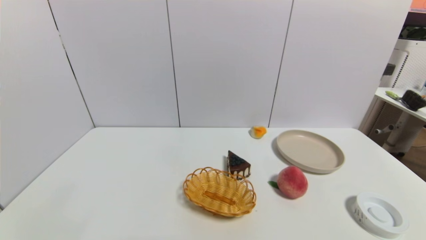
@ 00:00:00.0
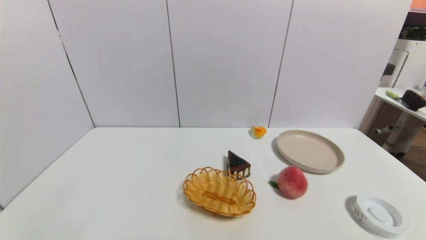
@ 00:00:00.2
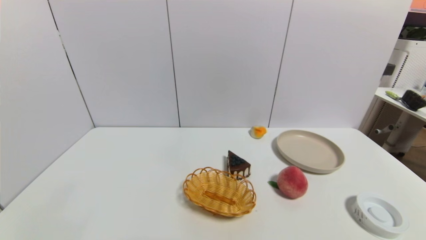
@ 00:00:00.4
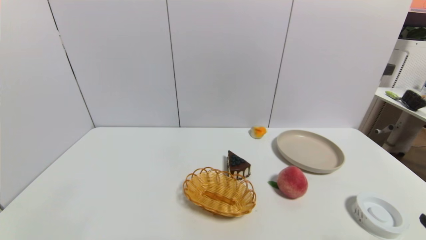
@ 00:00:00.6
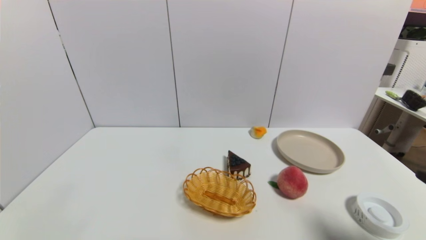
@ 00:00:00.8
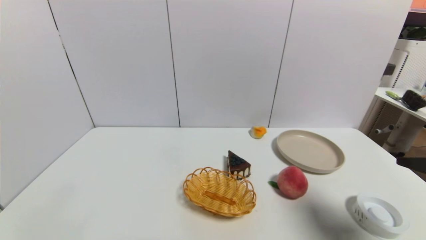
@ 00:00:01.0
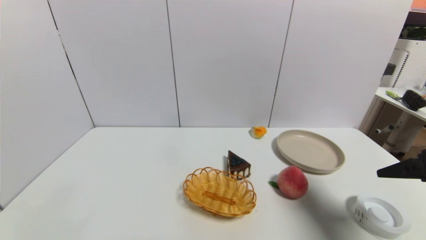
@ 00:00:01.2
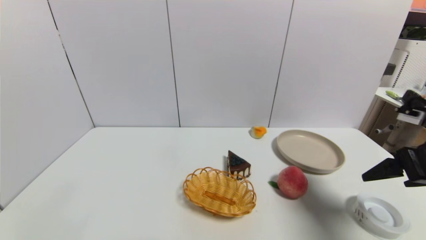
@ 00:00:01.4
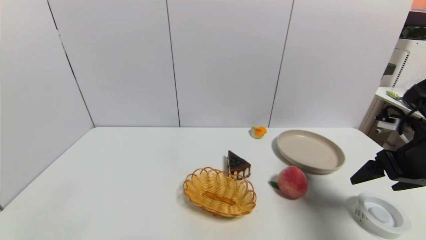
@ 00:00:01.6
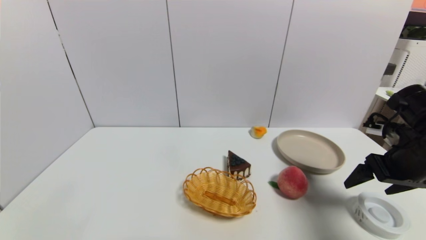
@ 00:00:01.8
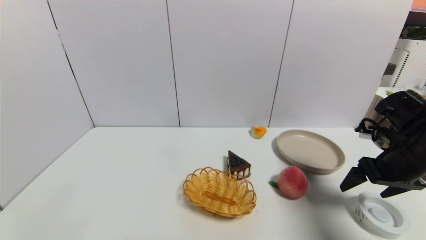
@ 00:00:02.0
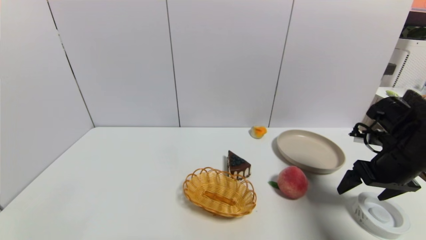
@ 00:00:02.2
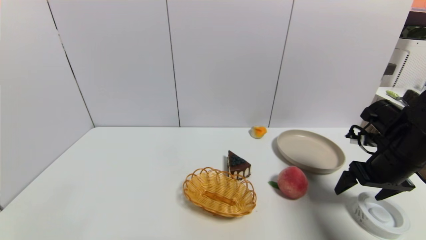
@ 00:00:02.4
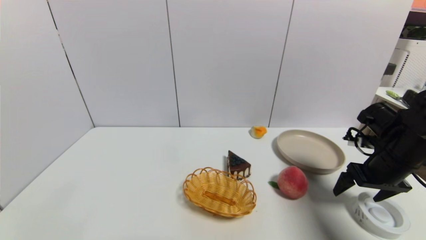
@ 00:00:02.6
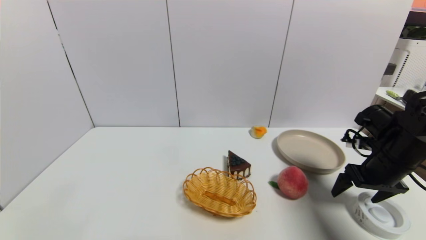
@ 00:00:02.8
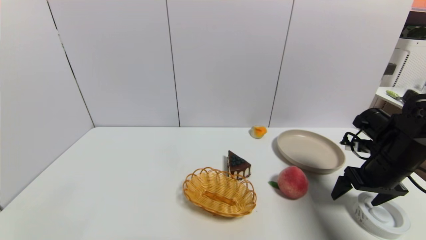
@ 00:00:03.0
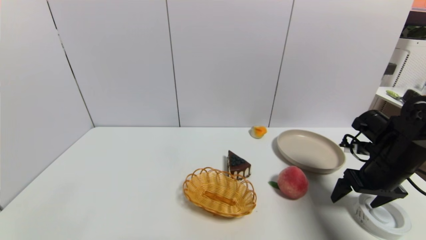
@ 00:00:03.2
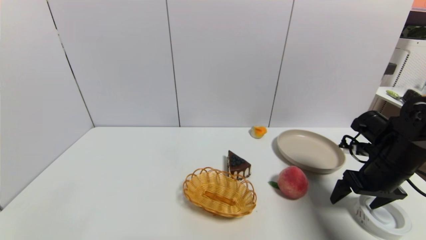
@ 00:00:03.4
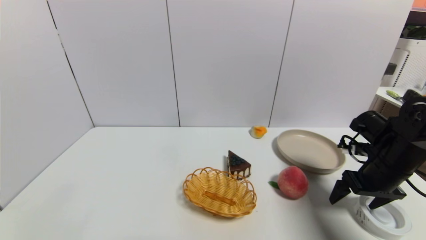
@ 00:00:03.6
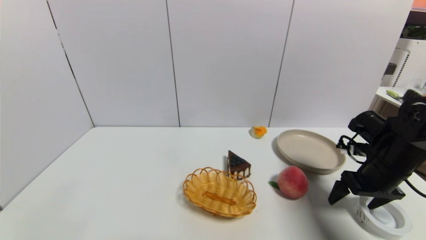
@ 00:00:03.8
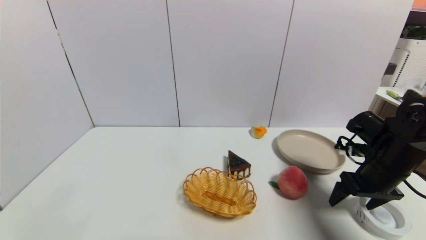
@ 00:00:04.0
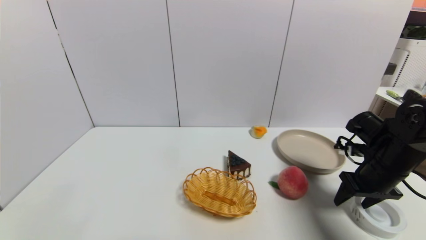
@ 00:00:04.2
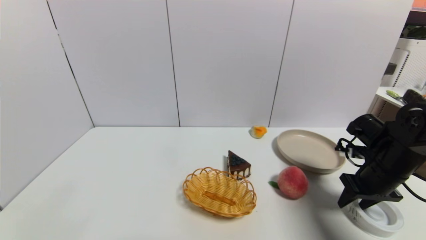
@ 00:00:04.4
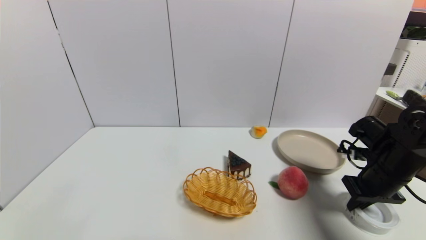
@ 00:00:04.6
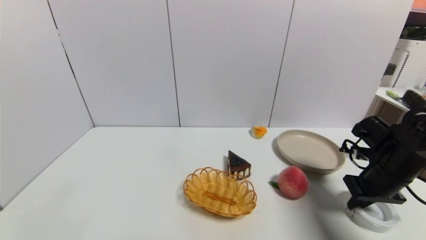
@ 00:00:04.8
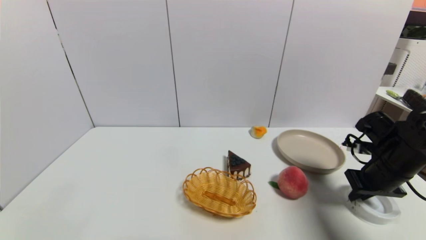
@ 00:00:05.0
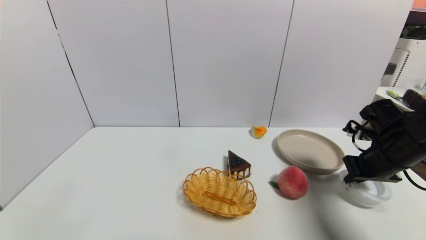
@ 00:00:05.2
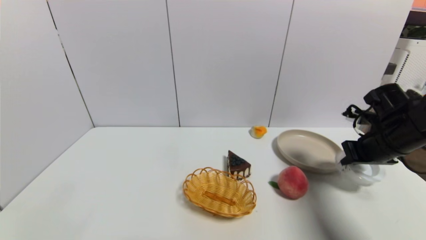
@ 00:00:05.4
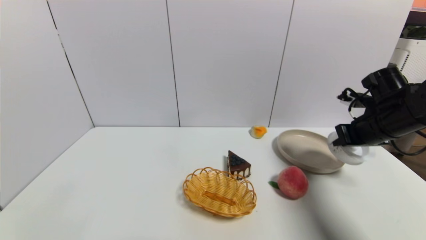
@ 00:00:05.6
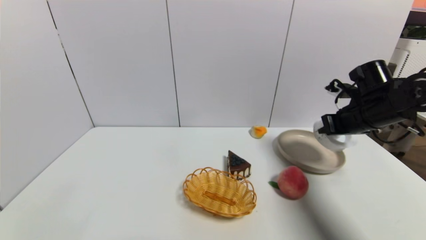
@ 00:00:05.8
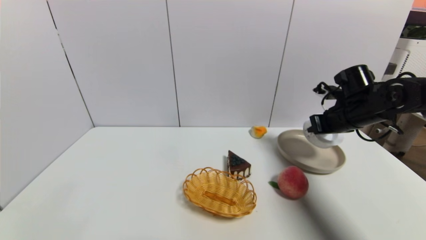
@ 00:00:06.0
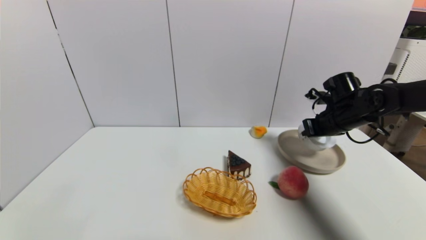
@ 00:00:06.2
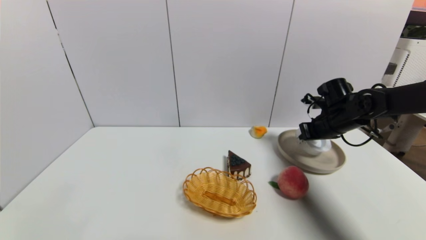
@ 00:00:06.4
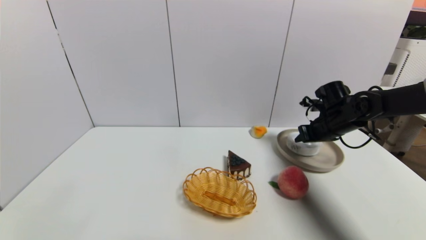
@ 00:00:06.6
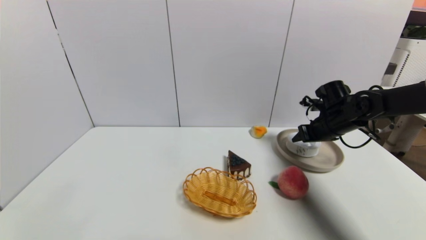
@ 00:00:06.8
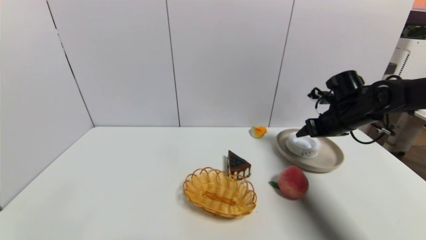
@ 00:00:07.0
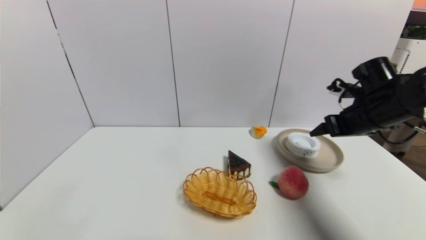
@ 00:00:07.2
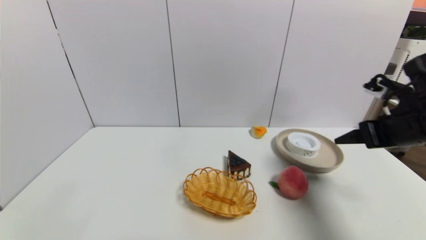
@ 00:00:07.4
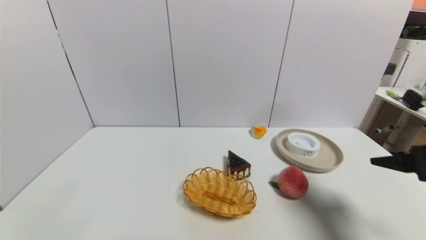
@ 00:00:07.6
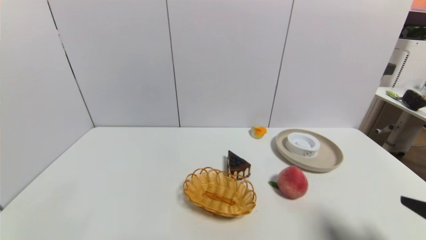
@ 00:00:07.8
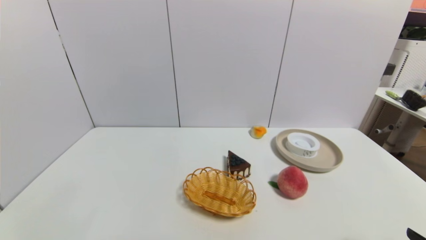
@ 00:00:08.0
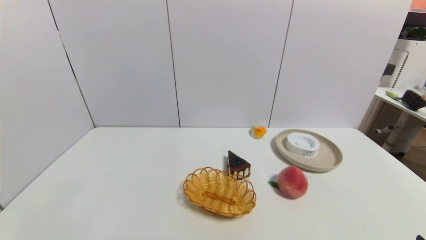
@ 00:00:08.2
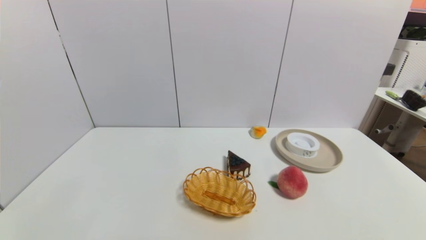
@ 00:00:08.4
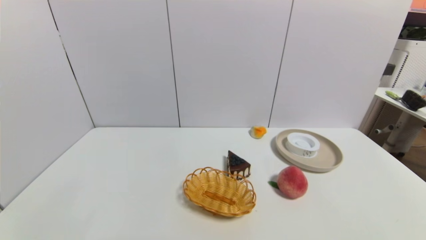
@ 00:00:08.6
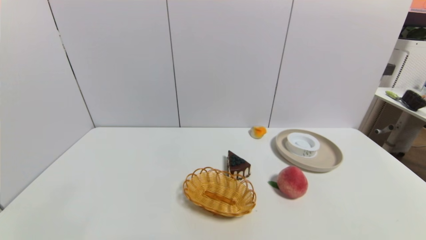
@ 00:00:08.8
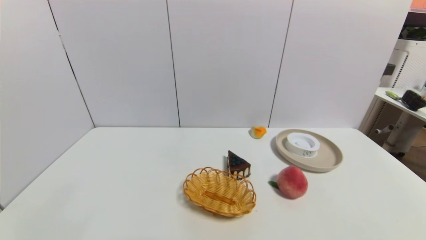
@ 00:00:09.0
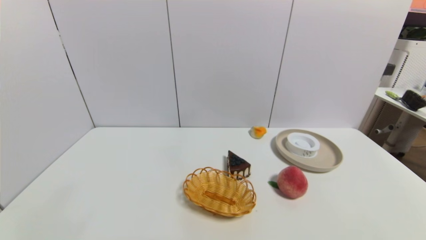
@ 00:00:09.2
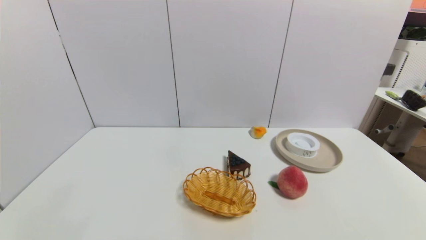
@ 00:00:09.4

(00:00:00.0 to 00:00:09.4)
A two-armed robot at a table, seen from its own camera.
Task of the whole recording: use a gripper to pick the target object and place on the brown plate.
Step, 00:00:00.0 - 00:00:04.8: Grasp the tape with the right gripper.
Step, 00:00:05.0 - 00:00:06.8: Place the tape on the brown plate with the right gripper.
00:00:00.0 - 00:00:01.6: The right gripper is displaced forward and upward by about 30 cm.
00:00:01.6 - 00:00:03.2: The right gripper goes roughly 10 cm downward and forward.
00:00:03.2 - 00:00:04.8: The right gripper closes up.
00:00:04.8 - 00:00:06.2: The right gripper goes approximately 10 cm forward.
00:00:06.2 - 00:00:07.8: The right gripper moves backward, about 30 cm, and opens its fingers.
00:00:07.8 - 00:00:09.4: The right gripper is displaced downward and backward by some 15 cm.
